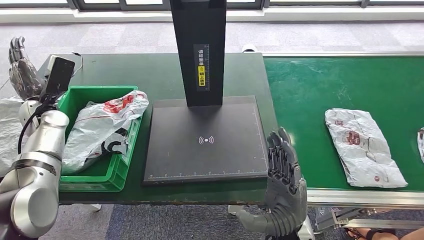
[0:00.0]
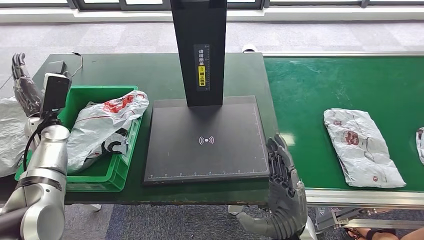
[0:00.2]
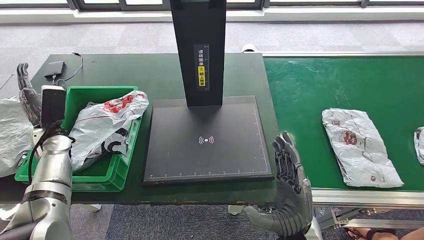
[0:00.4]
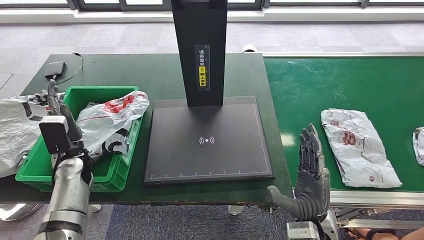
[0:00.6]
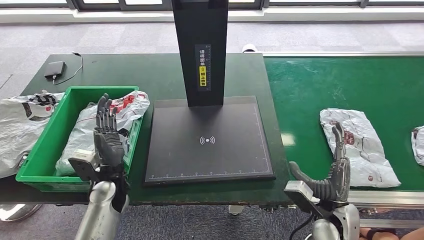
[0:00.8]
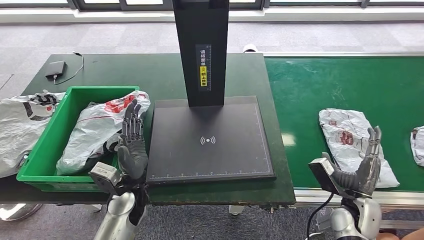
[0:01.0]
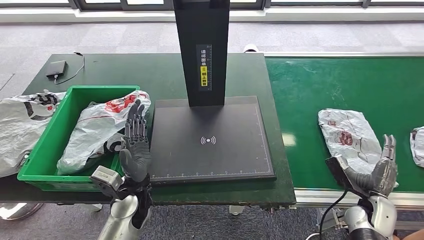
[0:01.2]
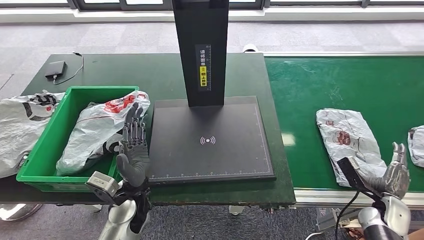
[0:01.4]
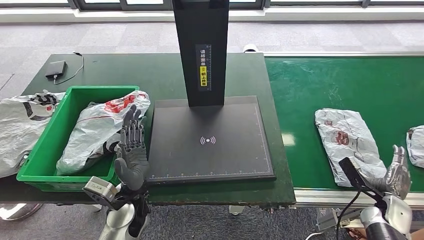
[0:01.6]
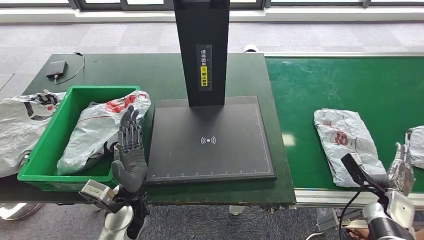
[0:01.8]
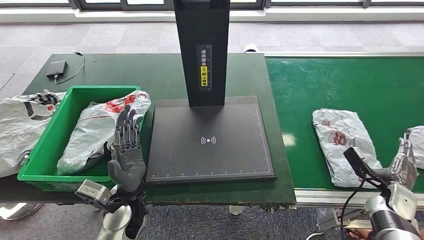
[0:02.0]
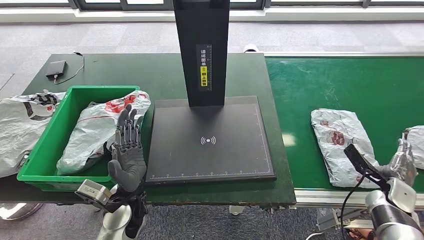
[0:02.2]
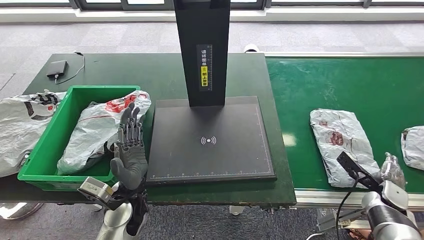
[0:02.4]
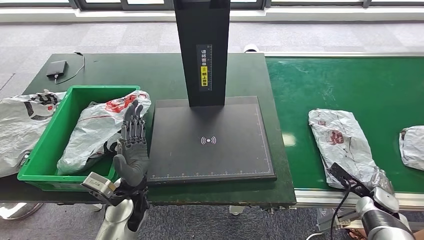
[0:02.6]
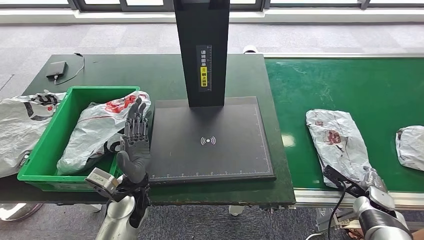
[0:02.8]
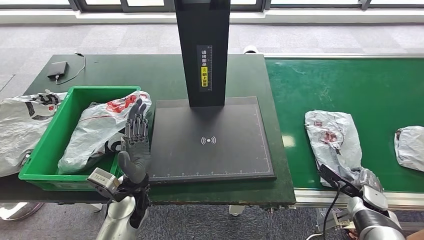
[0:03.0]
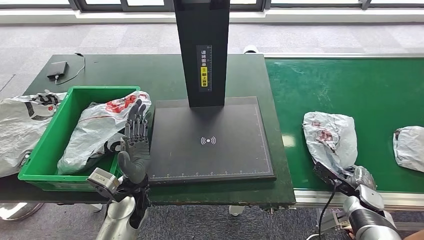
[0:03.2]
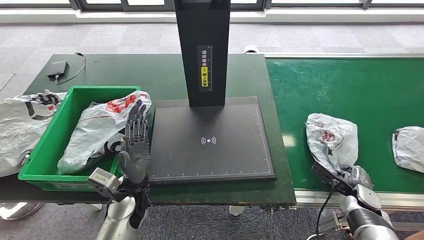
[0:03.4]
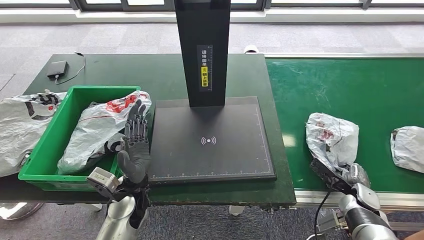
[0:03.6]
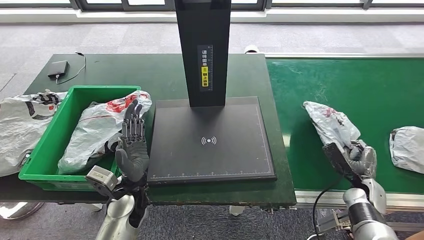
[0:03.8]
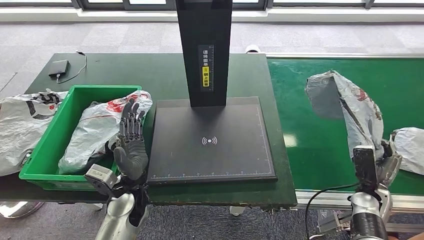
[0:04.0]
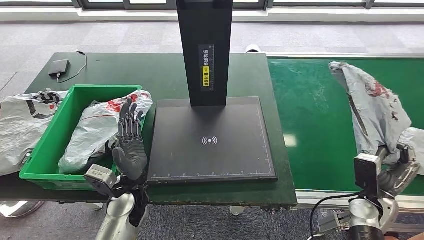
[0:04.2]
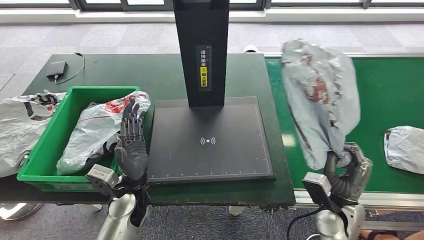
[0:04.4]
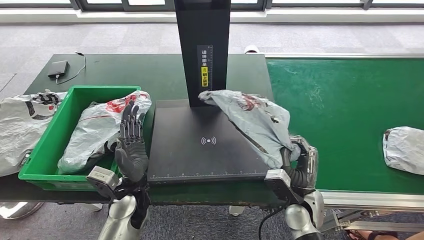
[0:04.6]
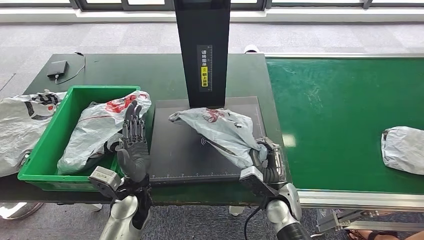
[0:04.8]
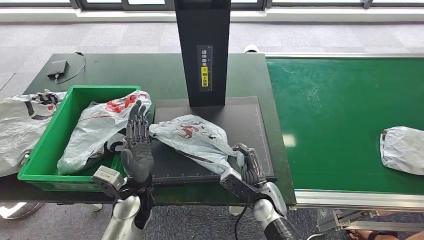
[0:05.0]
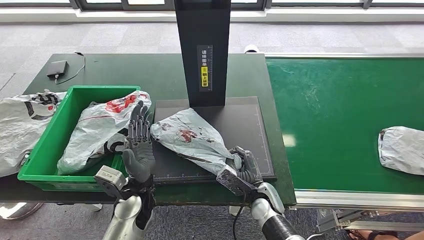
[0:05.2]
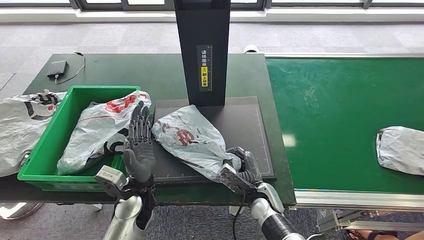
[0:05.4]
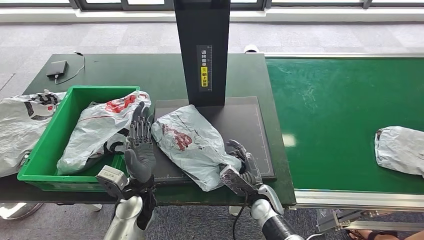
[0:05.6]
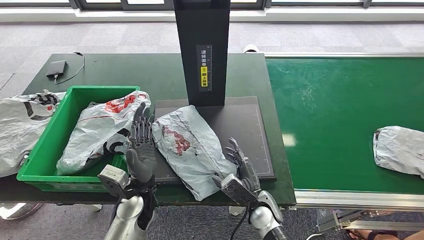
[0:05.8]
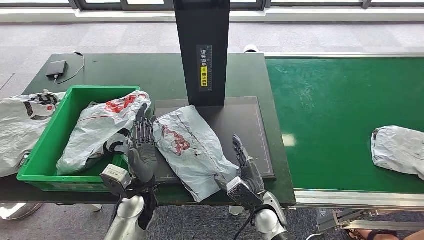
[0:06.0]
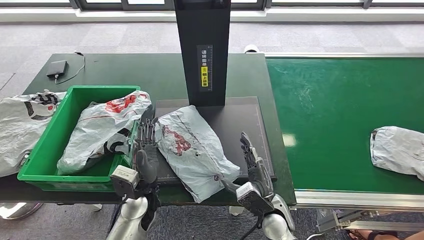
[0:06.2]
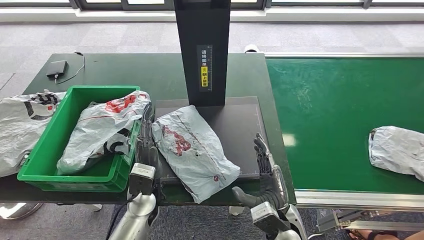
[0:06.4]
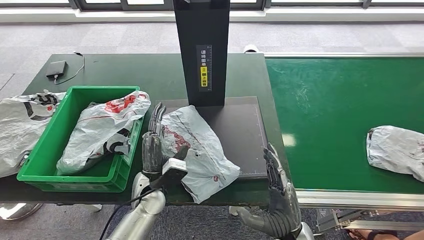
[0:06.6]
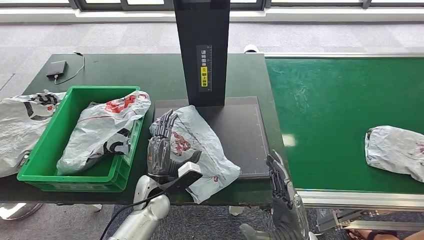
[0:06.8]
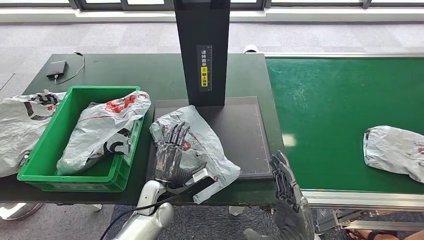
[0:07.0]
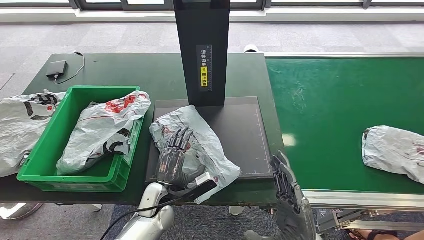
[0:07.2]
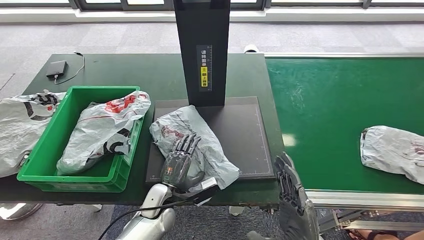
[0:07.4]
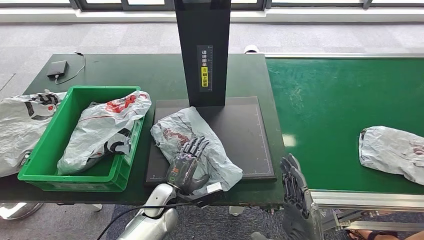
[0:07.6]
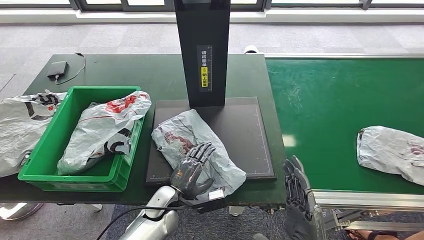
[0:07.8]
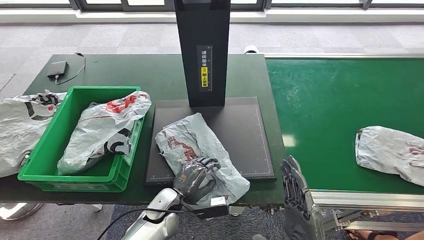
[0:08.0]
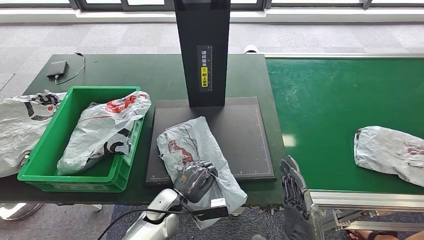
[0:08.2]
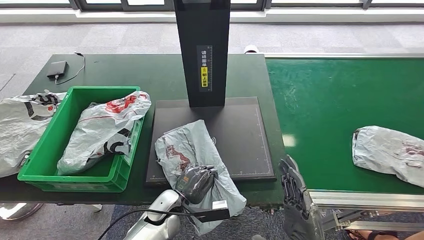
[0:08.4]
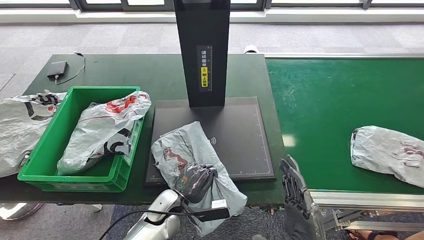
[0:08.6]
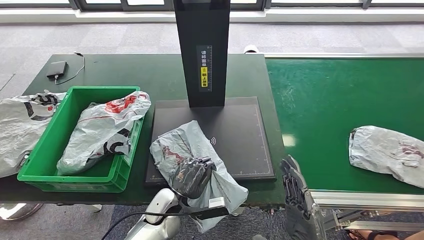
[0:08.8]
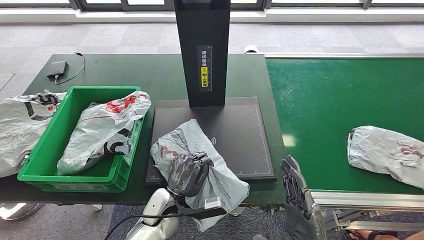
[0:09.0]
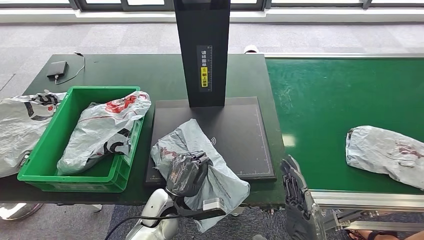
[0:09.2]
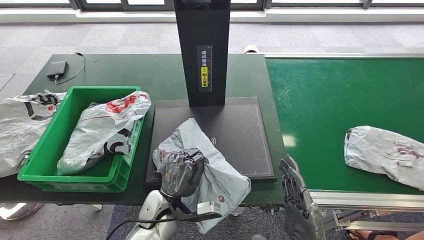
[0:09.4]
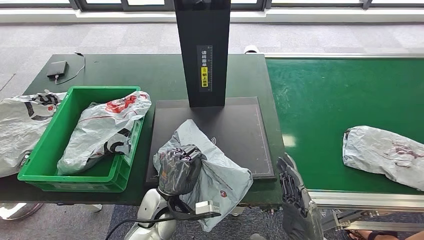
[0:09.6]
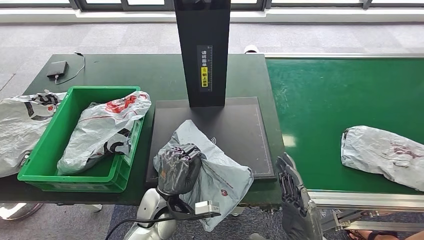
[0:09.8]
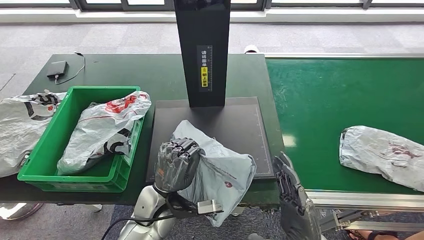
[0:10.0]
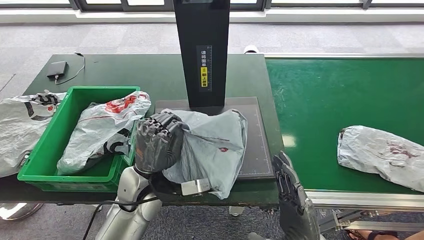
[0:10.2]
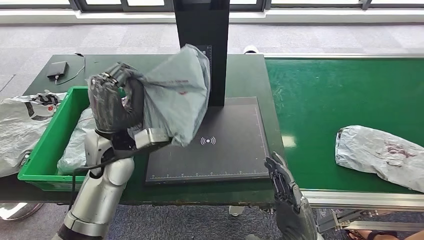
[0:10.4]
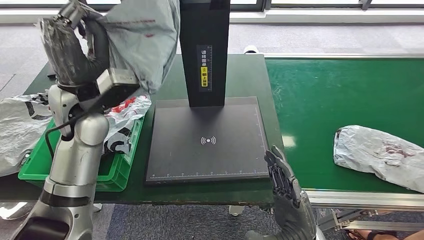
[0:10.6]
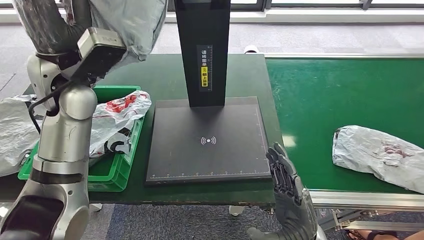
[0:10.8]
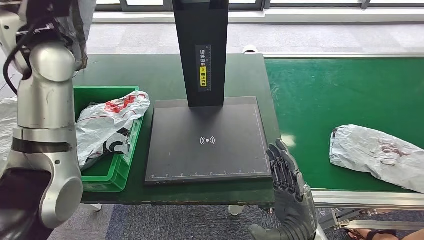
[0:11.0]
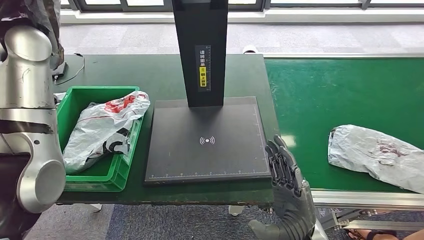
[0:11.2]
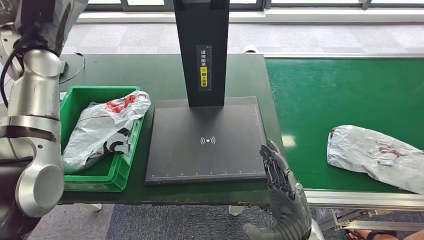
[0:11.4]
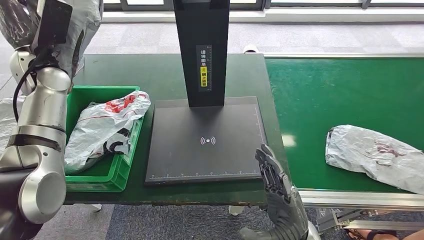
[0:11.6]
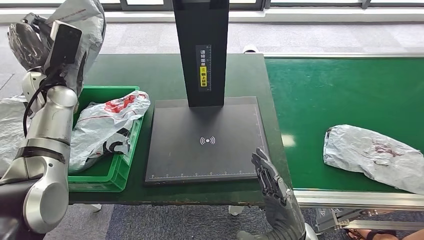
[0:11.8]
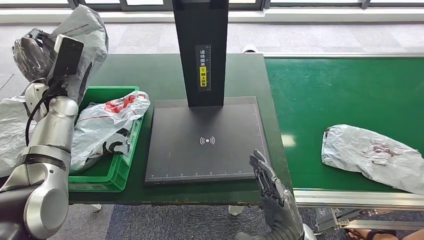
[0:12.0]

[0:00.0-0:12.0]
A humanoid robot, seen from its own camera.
Step, 0:02.0 to 0:04.0: Pick up the parcel from the conveyor belt.
Step, 0:04.2 to 0:06.8: Place the parcel onto the inbound machine.
Step, 0:07.0 to 0:10.6: Pick up the parcel from the inbound machine.
0:06.0 to 0:07.6: The right hand goes roughly 15 cm backward, upward and to the right; the left hand travels downward by about 10 cm.

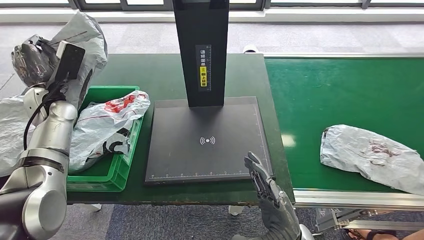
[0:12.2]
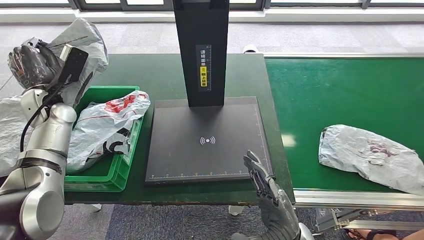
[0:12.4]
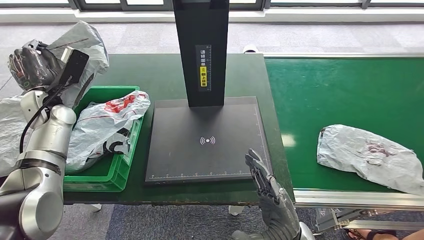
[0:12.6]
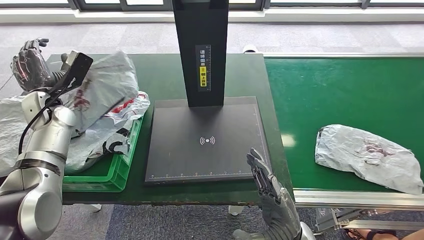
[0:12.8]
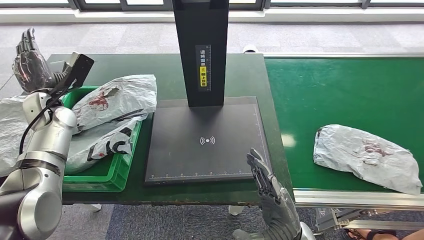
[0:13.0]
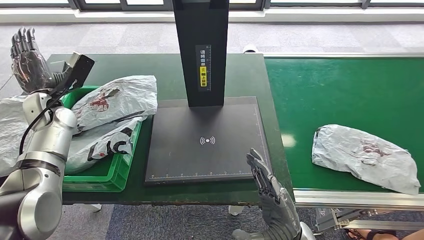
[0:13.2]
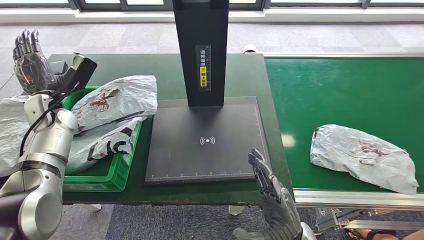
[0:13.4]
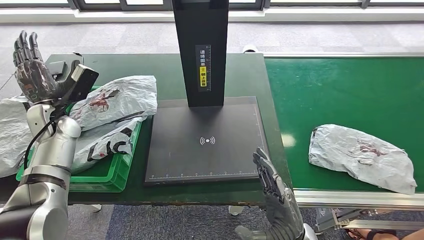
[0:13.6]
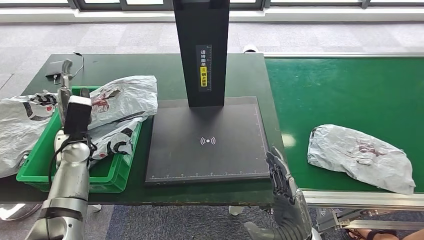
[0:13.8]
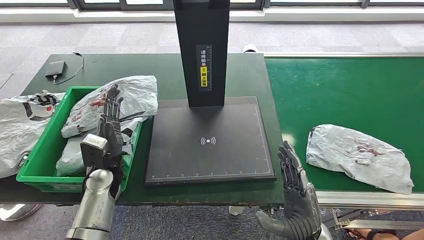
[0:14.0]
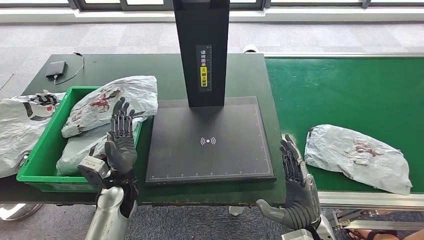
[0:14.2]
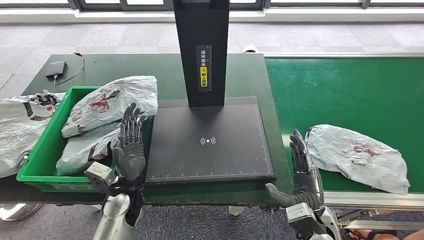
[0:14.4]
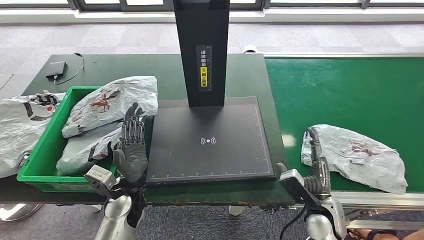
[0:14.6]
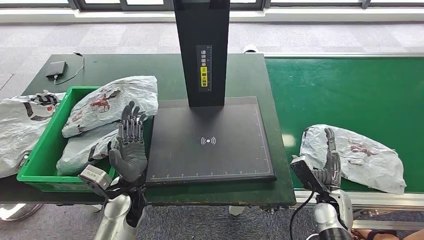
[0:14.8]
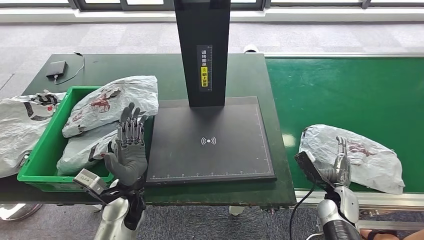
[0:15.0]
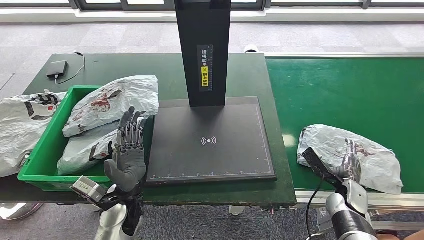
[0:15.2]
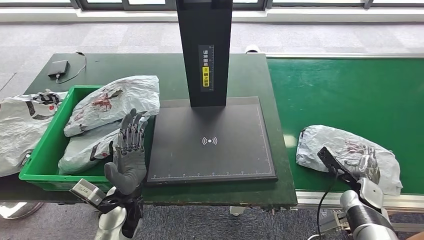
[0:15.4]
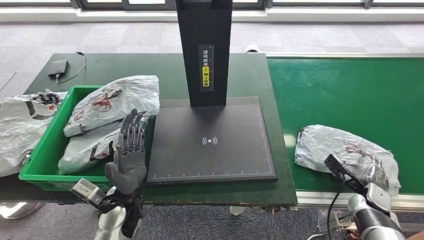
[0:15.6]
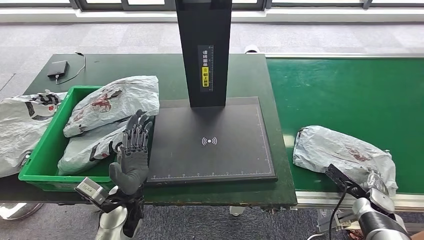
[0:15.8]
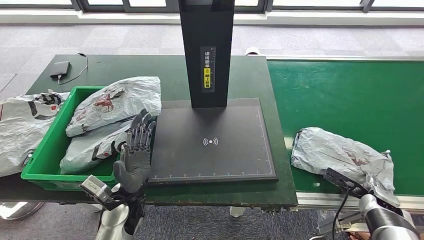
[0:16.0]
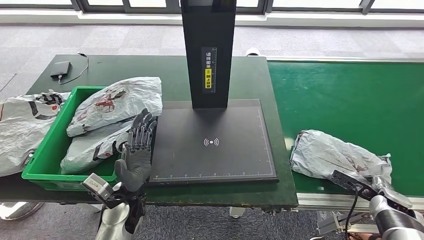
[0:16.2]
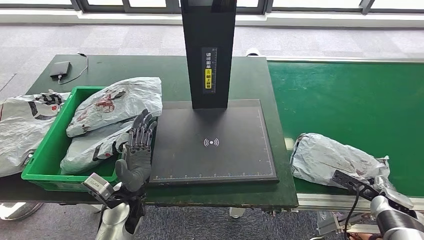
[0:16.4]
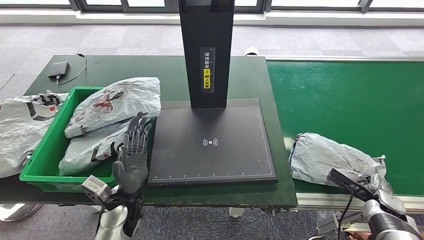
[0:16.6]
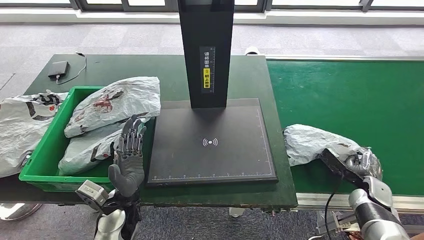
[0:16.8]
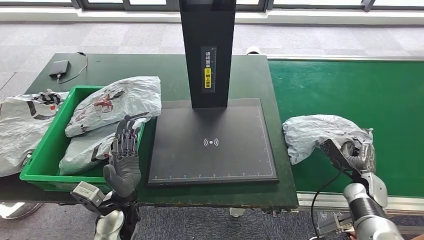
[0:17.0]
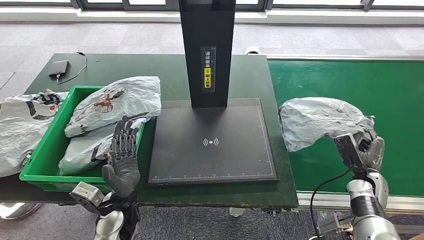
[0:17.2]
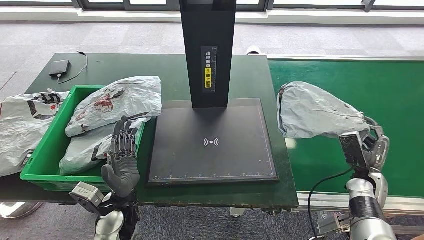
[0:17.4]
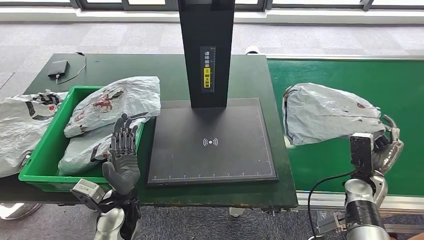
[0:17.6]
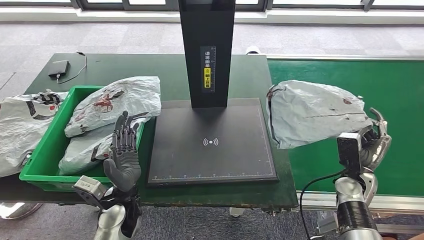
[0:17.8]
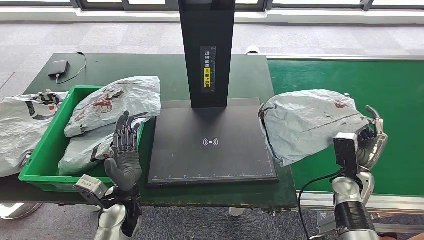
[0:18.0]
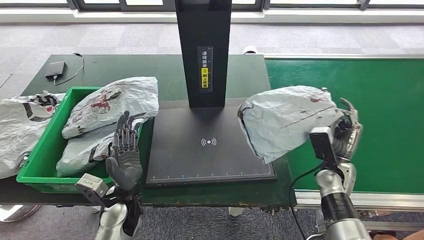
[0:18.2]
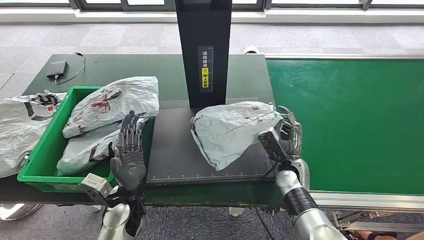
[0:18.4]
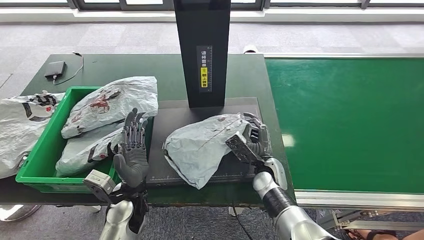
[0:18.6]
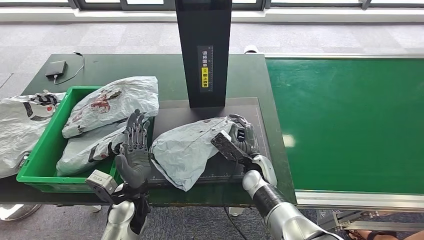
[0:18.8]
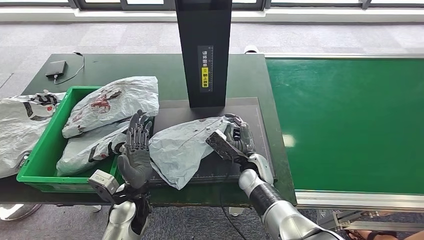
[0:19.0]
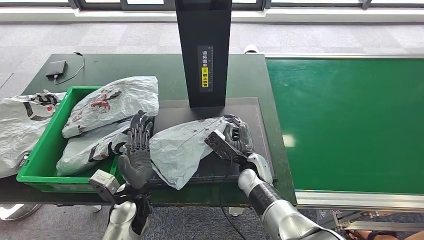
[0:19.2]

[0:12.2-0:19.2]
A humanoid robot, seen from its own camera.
Step, 0:12.2 to 0:14.2: Place the parcel into the delivery box.
Step, 0:14.6 to 0:17.6: Pick up the parcel from the conveyor belt.
